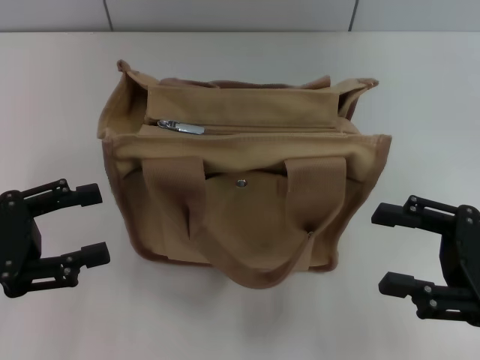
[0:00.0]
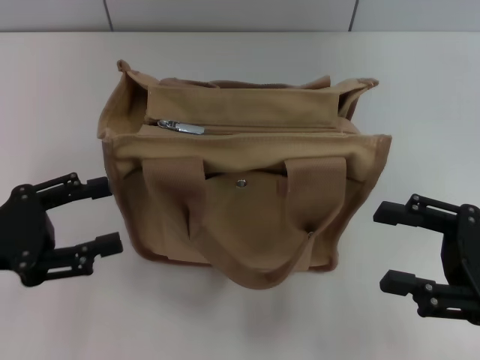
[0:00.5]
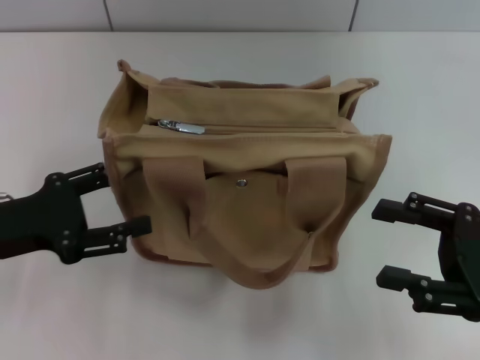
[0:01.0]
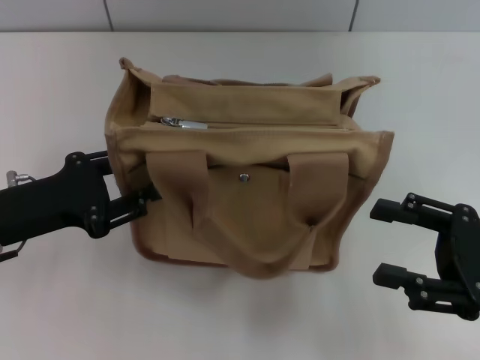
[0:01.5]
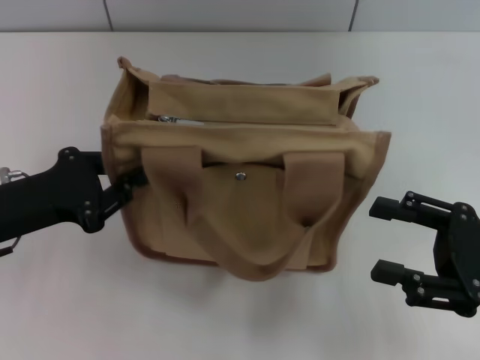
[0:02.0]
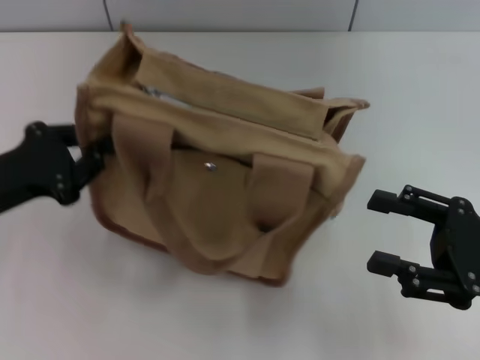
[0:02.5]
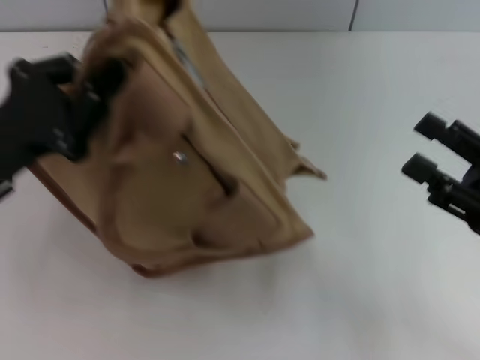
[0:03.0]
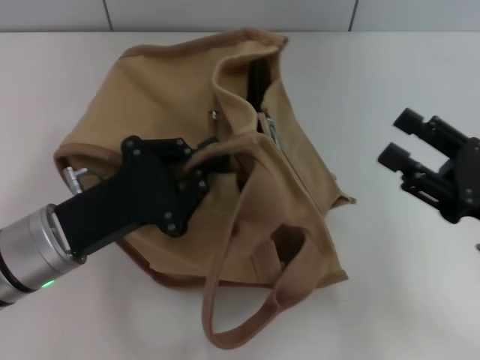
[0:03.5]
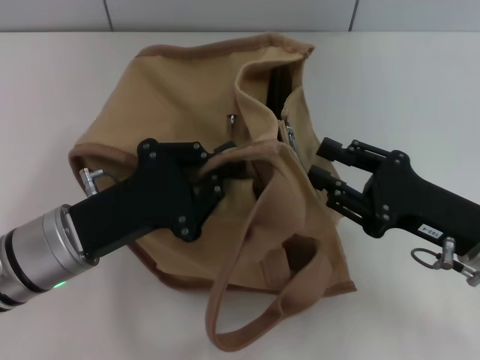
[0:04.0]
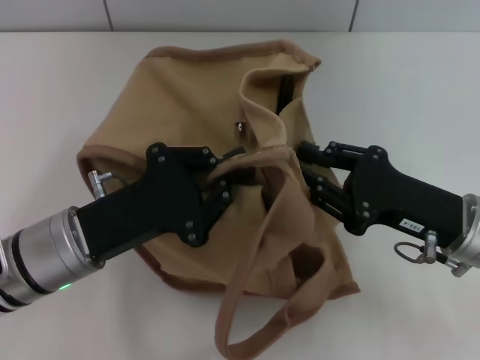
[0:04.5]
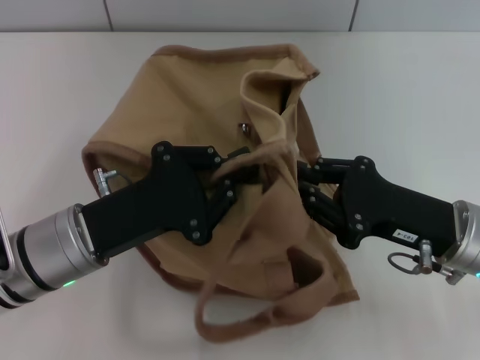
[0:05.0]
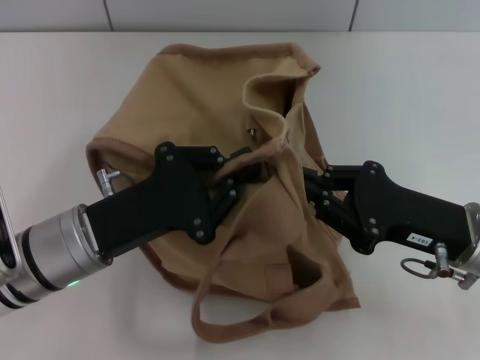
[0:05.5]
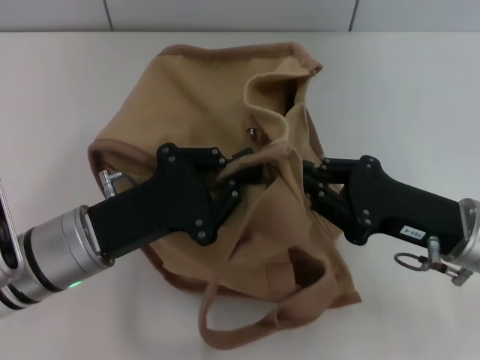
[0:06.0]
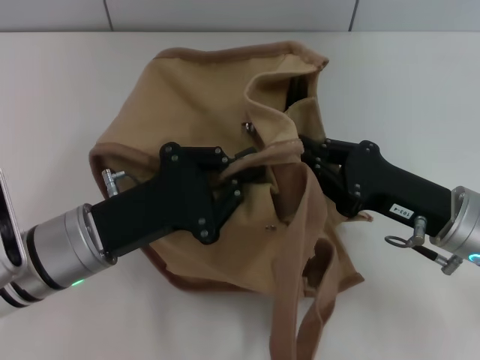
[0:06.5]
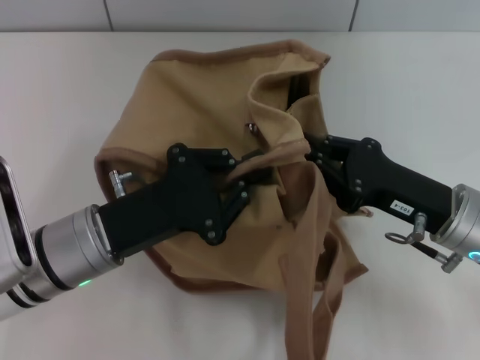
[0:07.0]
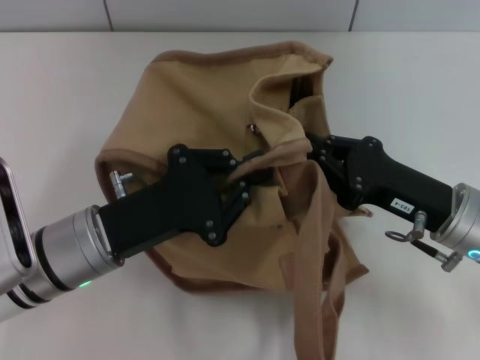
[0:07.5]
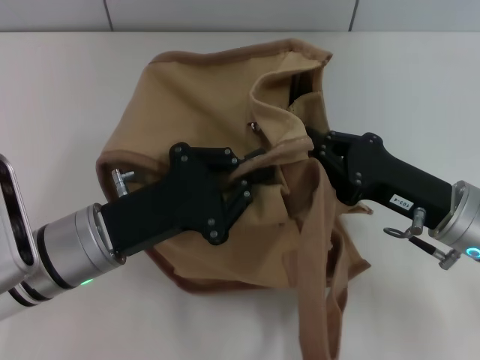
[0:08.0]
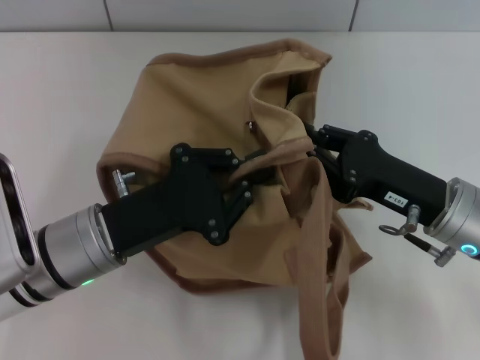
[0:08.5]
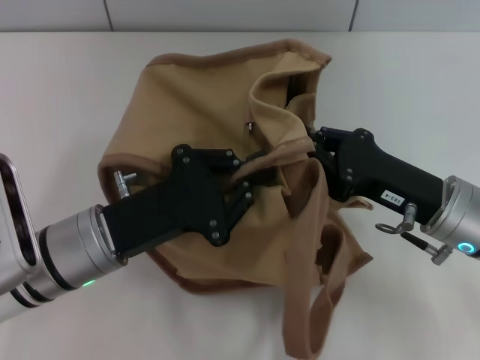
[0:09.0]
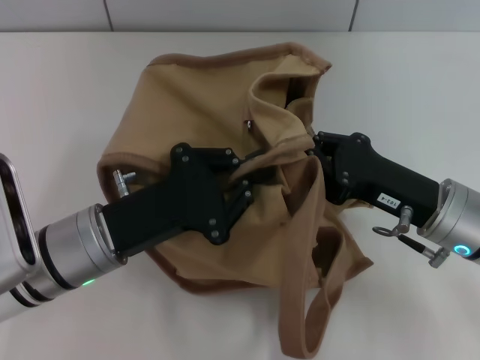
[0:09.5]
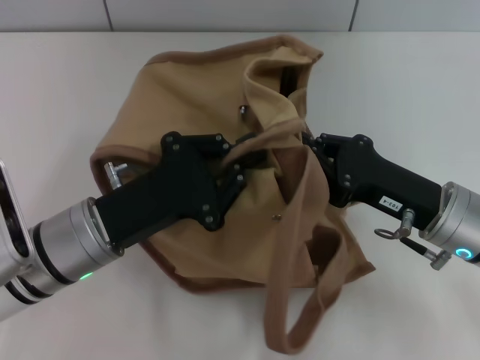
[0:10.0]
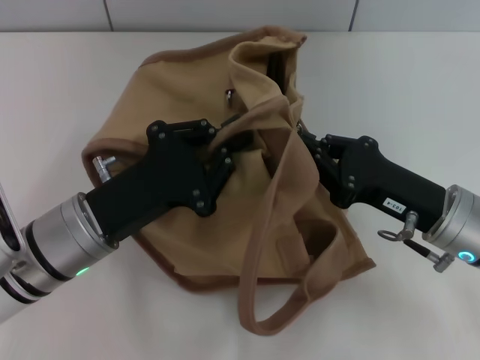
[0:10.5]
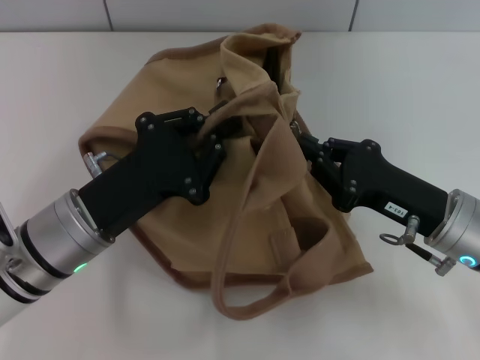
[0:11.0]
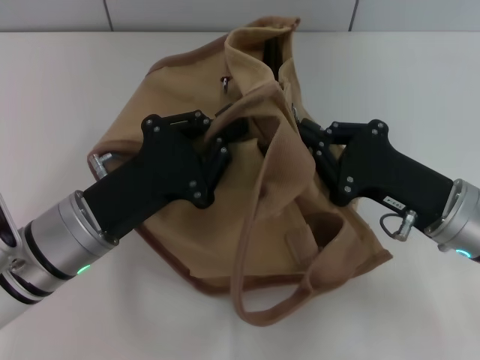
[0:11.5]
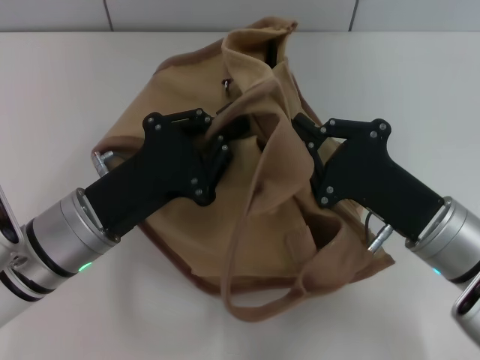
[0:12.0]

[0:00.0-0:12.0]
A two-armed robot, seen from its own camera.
0:00.0 to 0:02.0: The left gripper ends up roughly 5 cm from where it was, and closes up.
0:02.0 to 0:04.0: The right gripper heads to the left, covering some 5 cm, and closes up, while the left gripper shifts roughly 10 cm to the right.
0:04.0 to 0:06.0: The right gripper closes its fingers.
0:08.0 to 0:10.0: Both grippers stay put.

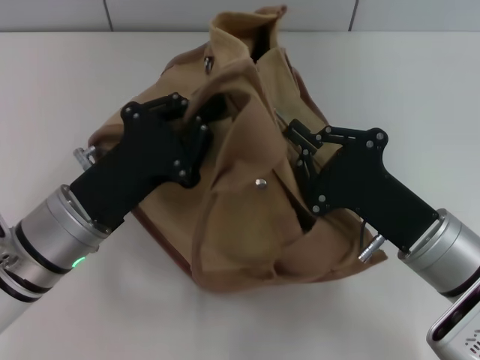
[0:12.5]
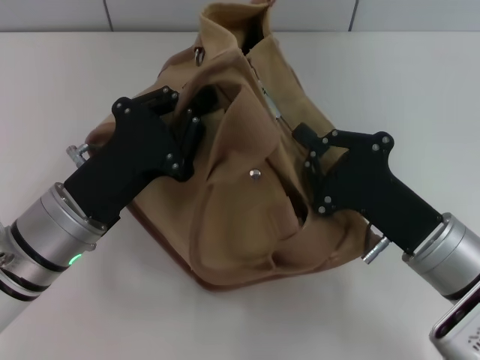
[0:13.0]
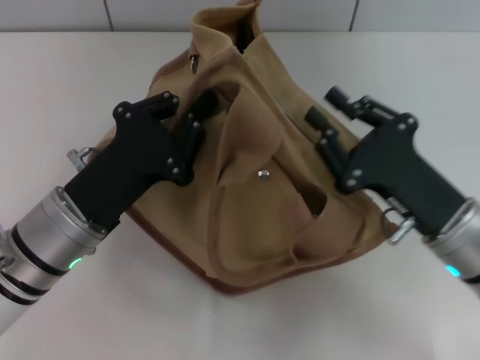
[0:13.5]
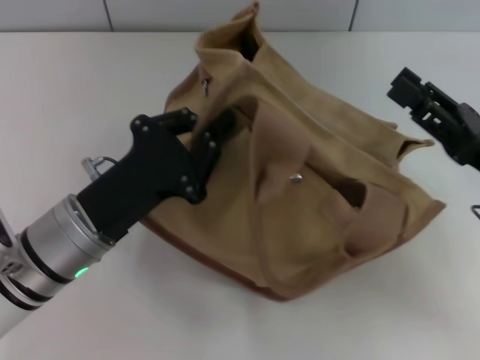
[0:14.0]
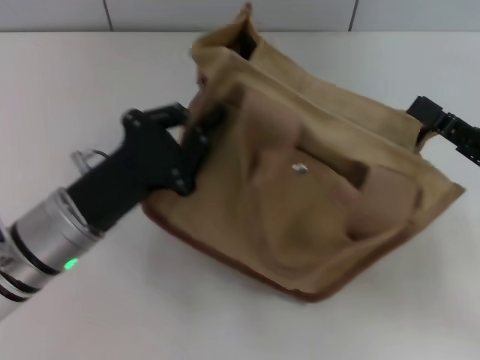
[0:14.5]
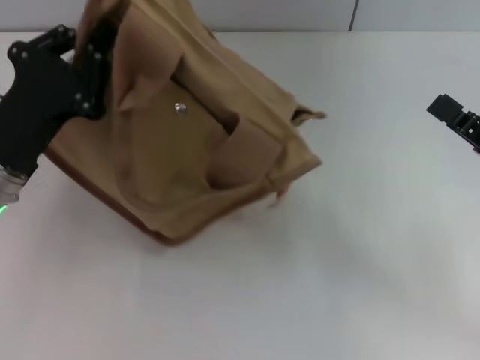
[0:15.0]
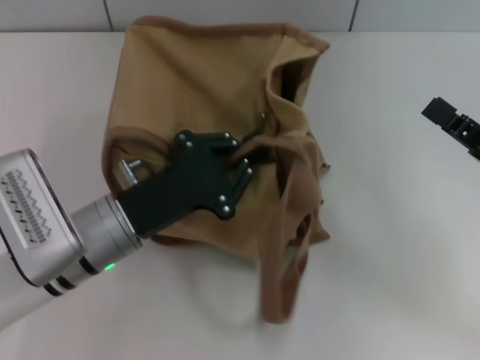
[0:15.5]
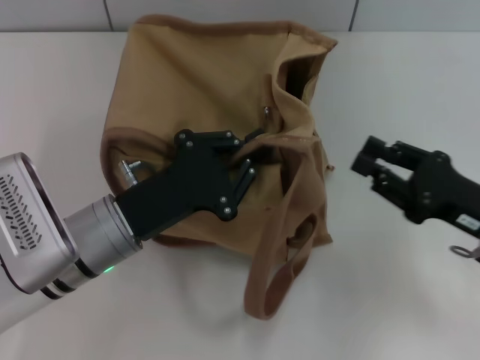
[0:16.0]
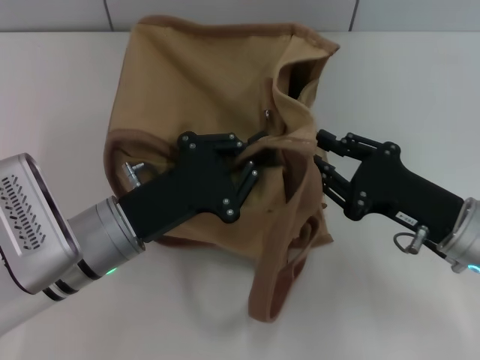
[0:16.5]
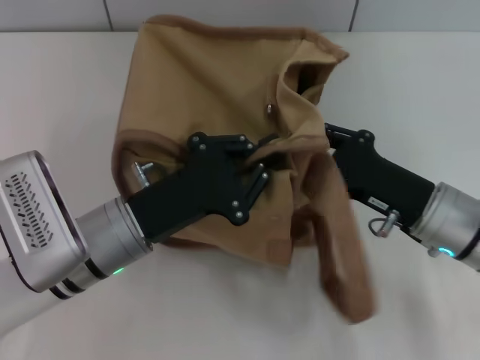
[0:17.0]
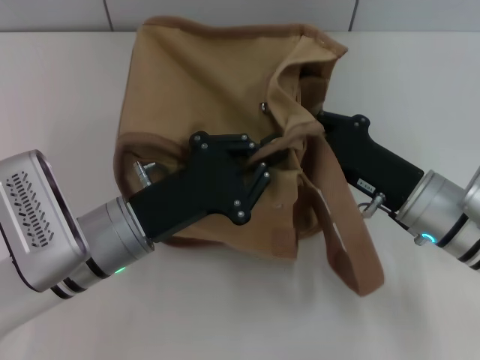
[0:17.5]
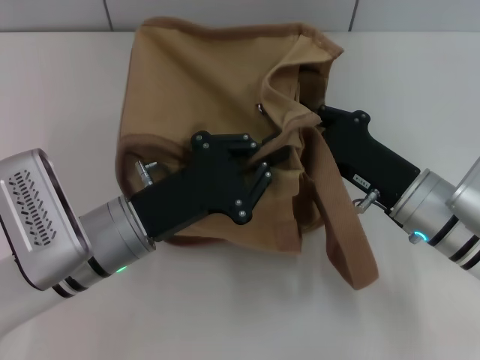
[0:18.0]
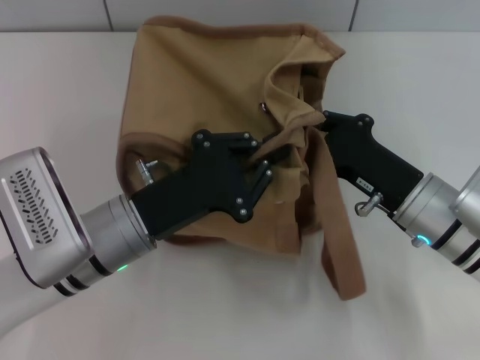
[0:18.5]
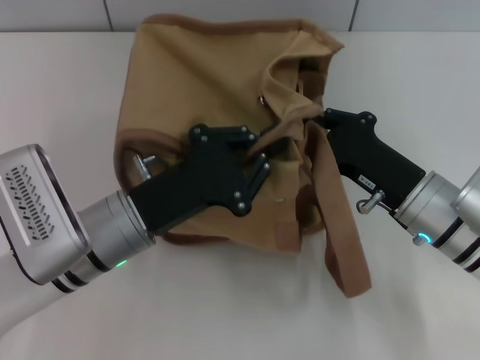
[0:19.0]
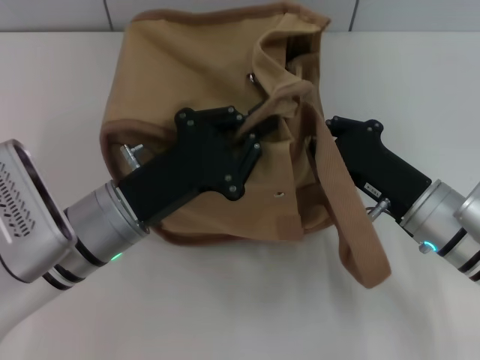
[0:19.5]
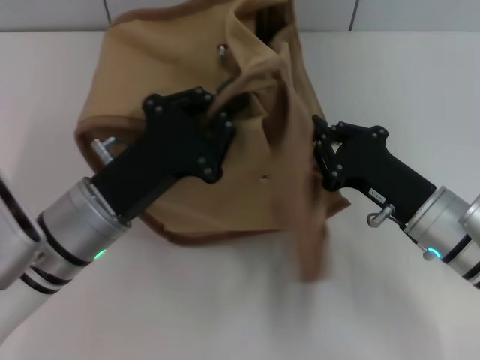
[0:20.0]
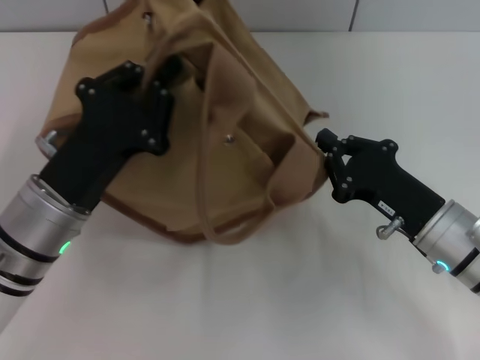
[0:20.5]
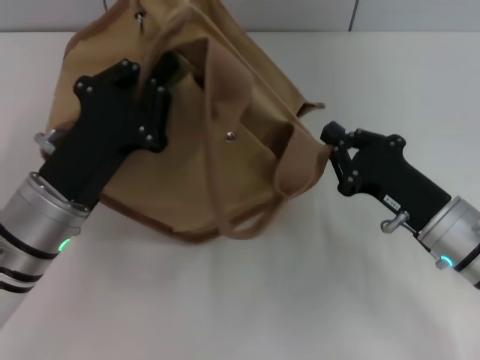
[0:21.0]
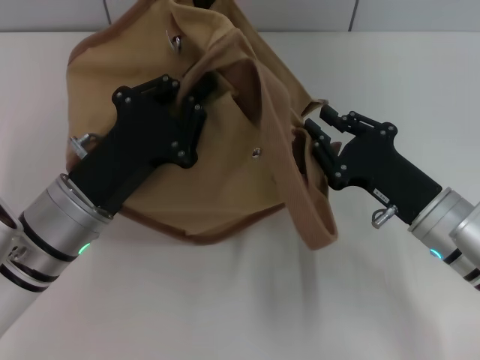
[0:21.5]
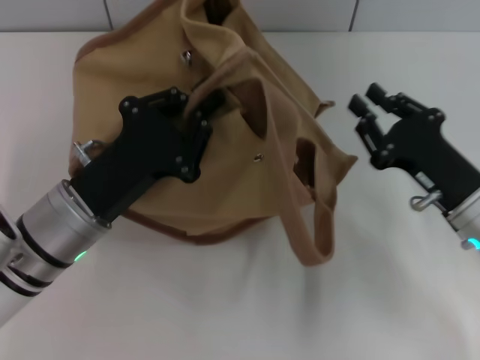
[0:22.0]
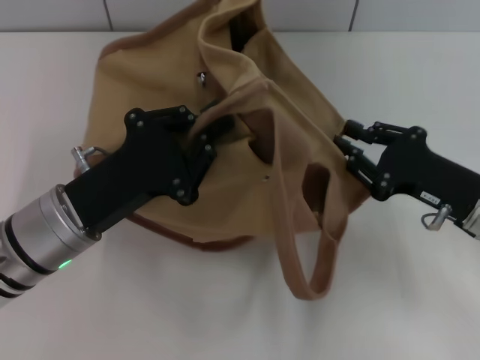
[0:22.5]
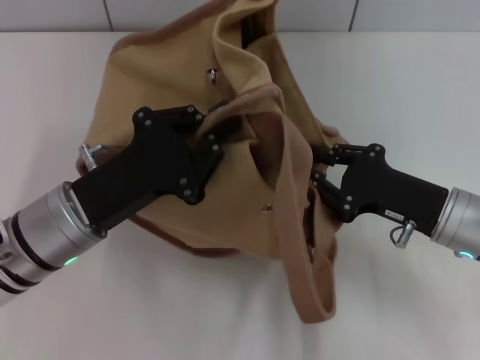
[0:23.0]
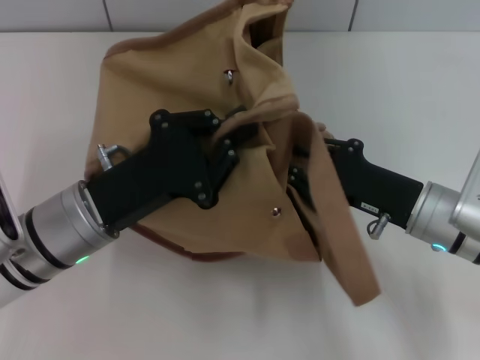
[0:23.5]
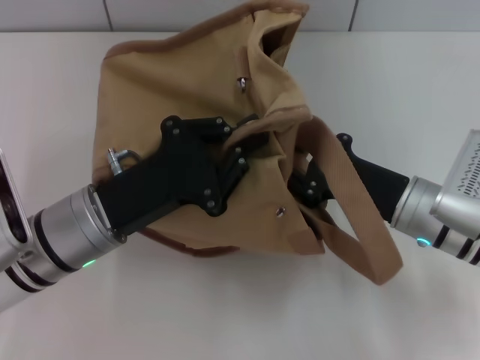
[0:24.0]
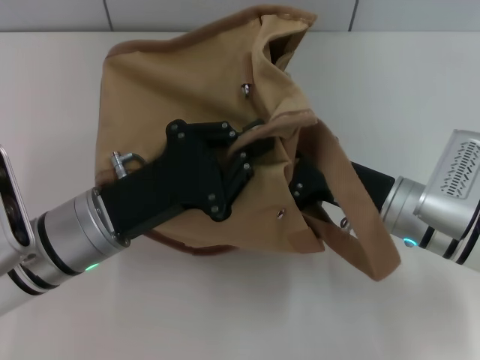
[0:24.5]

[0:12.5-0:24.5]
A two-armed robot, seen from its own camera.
0:12.5 to 0:14.5: The right gripper heads to the right, covering roughly 10 cm, and opens its fingers.
0:14.5 to 0:16.5: The right gripper is displaced to the left by roughly 5 cm.
0:16.5 to 0:18.5: The right gripper closes up.
0:20.5 to 0:22.5: The right gripper shifts by some 5 cm.
0:22.5 to 0:24.5: The right gripper moves to the left, roughly 10 cm.

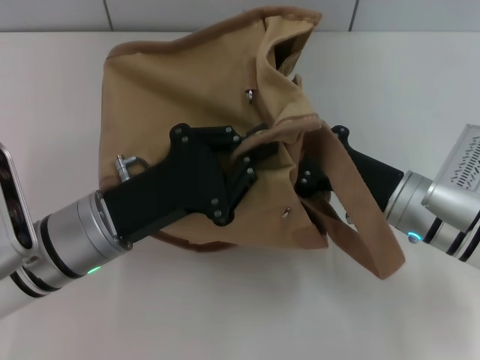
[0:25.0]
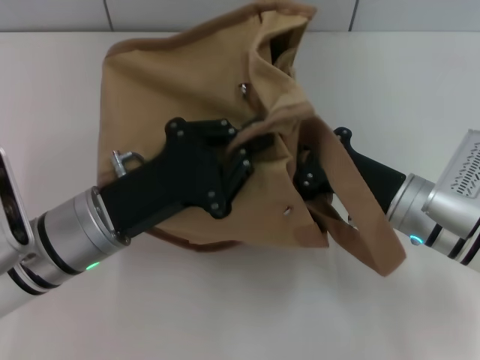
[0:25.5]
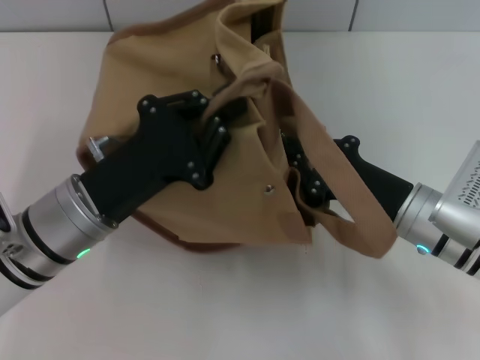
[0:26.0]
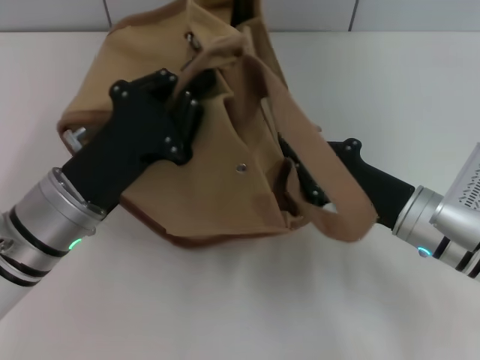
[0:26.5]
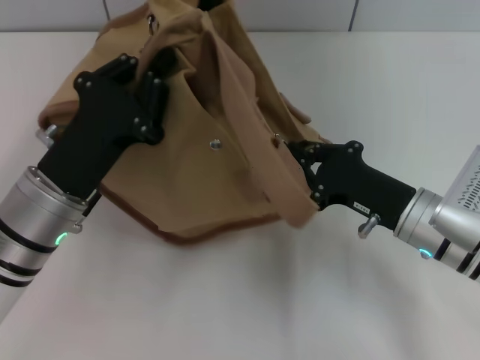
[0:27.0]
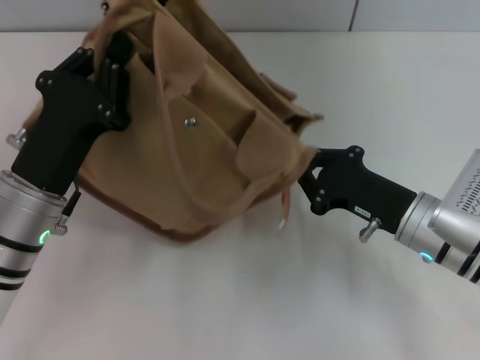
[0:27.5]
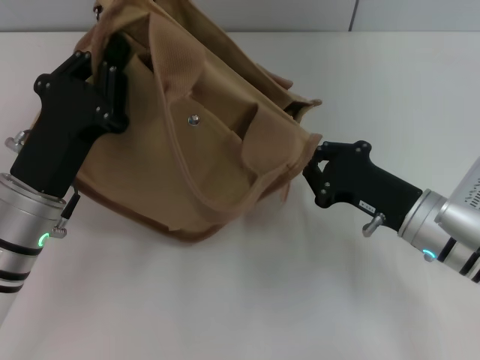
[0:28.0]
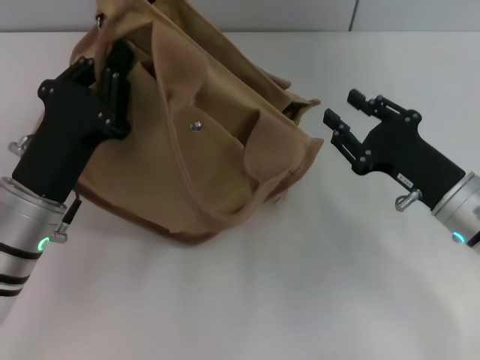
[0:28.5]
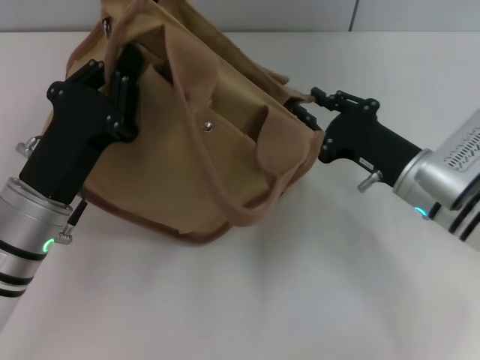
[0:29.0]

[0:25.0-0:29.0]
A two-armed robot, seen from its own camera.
Step, 0:25.0 to 0:28.0: Pull open the zipper with your right hand.
0:27.0 to 0:29.0: The right gripper opens.
